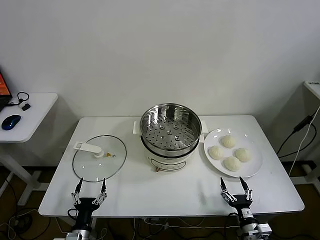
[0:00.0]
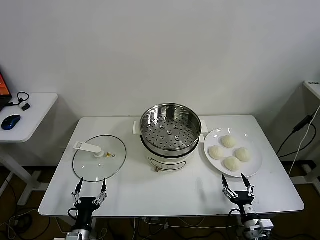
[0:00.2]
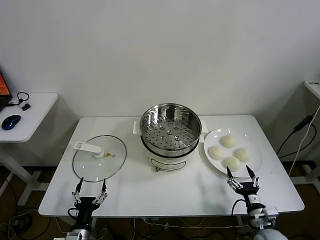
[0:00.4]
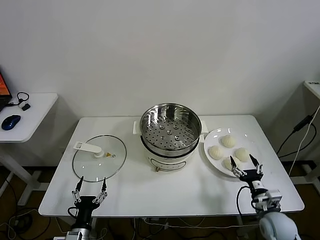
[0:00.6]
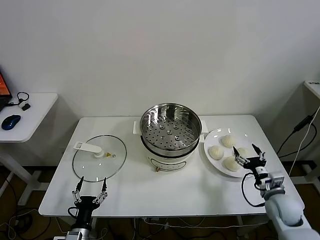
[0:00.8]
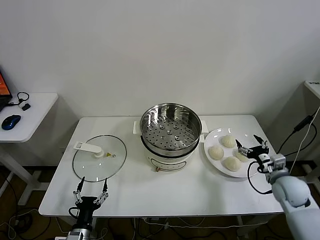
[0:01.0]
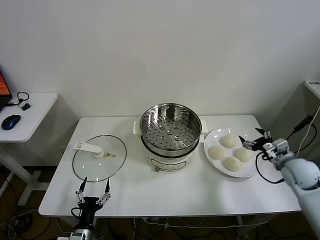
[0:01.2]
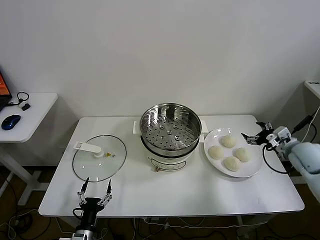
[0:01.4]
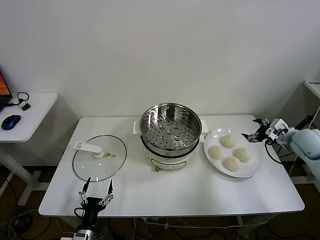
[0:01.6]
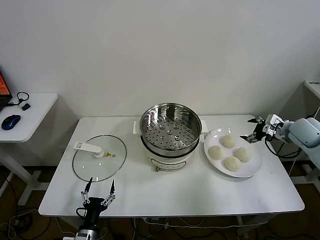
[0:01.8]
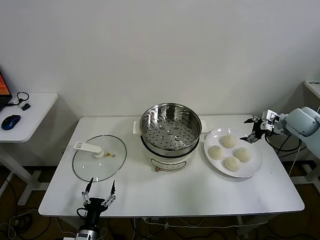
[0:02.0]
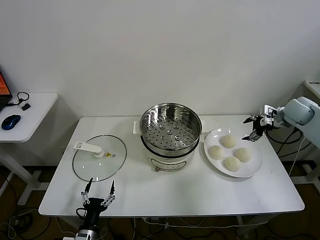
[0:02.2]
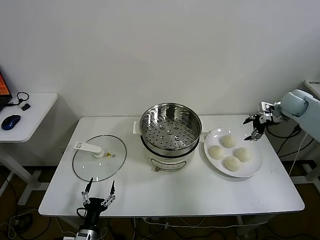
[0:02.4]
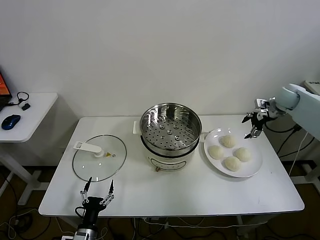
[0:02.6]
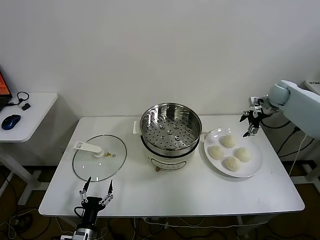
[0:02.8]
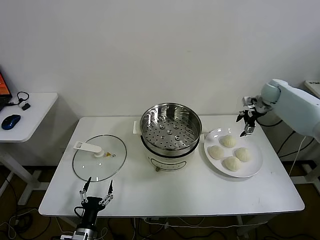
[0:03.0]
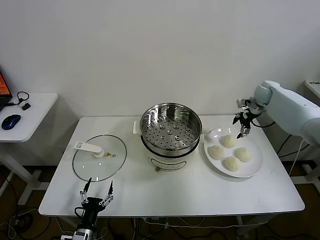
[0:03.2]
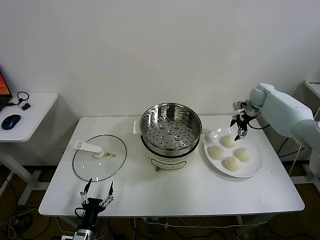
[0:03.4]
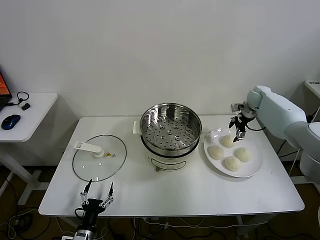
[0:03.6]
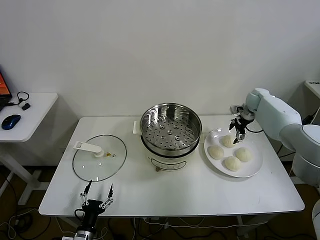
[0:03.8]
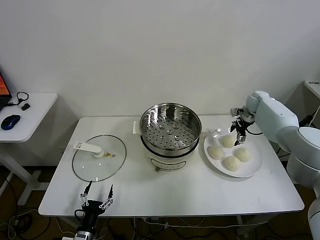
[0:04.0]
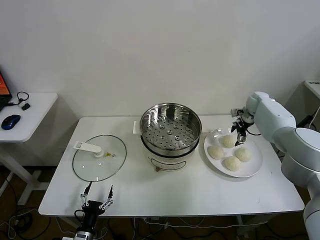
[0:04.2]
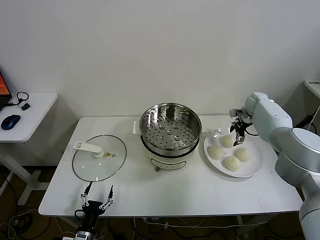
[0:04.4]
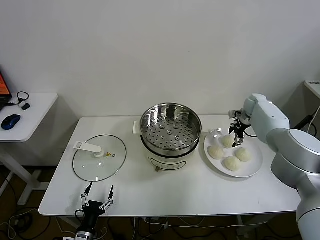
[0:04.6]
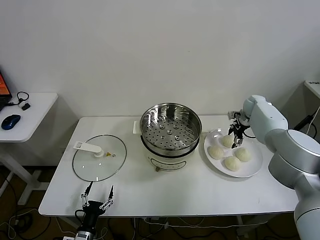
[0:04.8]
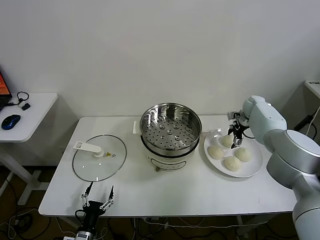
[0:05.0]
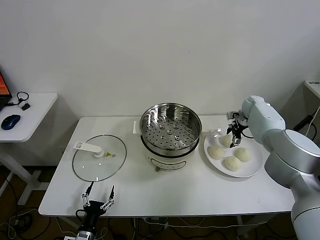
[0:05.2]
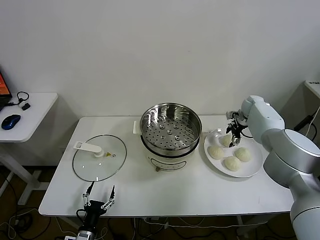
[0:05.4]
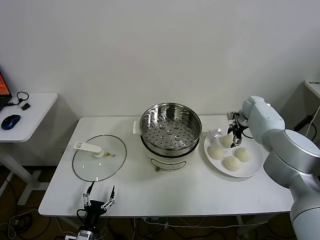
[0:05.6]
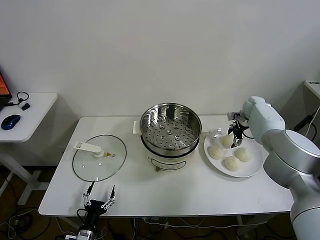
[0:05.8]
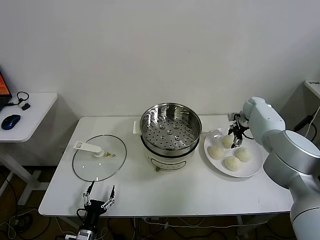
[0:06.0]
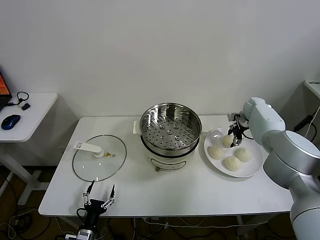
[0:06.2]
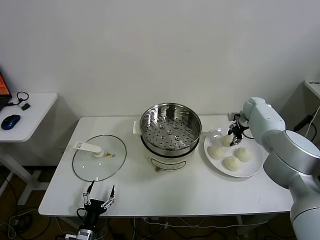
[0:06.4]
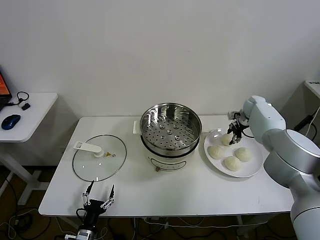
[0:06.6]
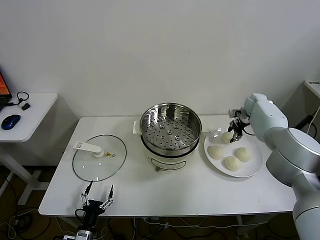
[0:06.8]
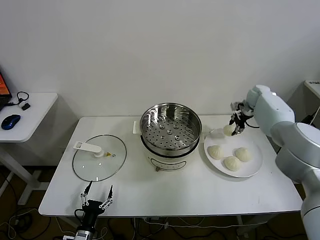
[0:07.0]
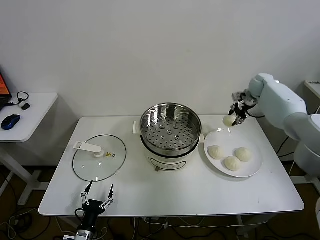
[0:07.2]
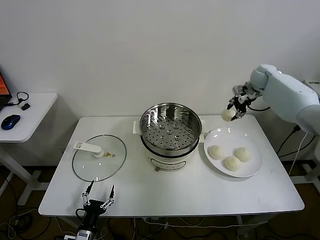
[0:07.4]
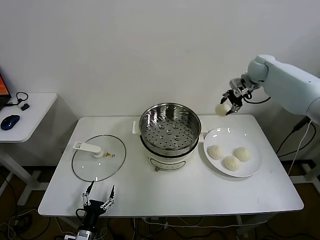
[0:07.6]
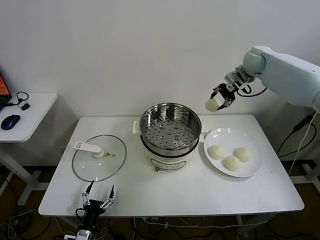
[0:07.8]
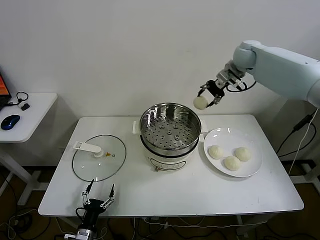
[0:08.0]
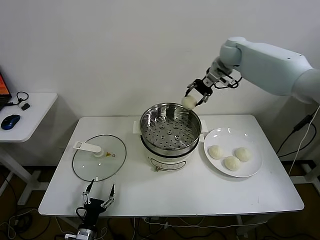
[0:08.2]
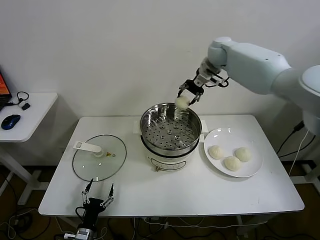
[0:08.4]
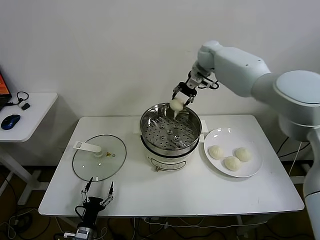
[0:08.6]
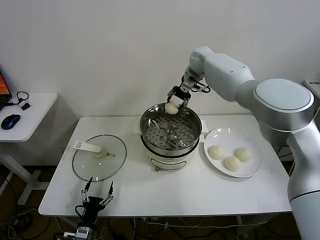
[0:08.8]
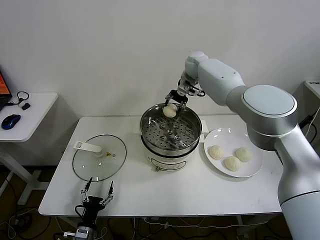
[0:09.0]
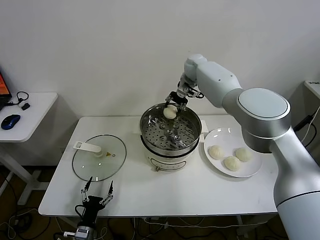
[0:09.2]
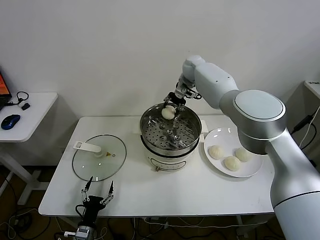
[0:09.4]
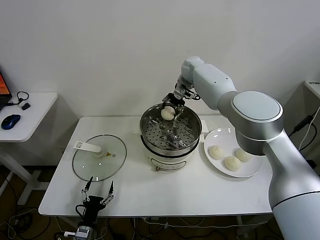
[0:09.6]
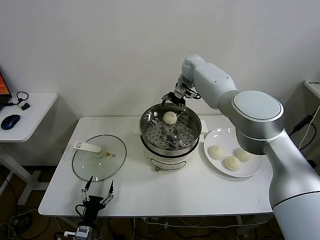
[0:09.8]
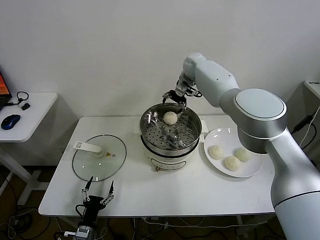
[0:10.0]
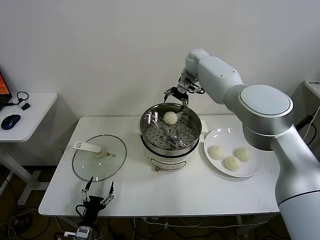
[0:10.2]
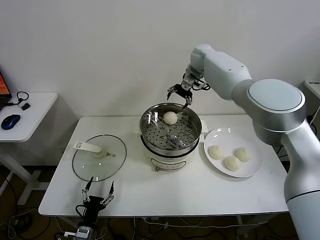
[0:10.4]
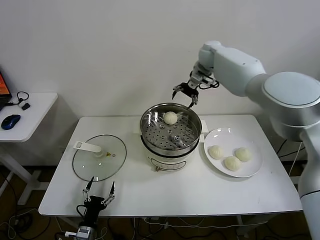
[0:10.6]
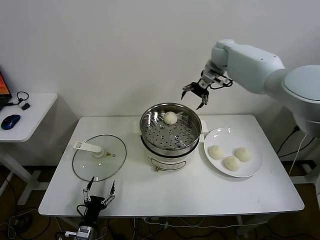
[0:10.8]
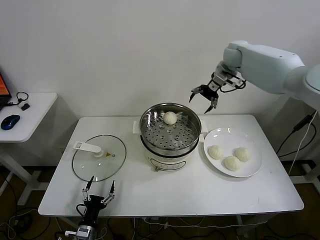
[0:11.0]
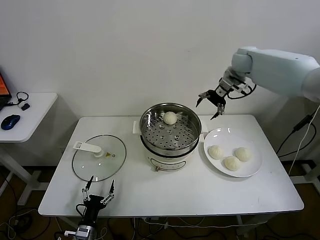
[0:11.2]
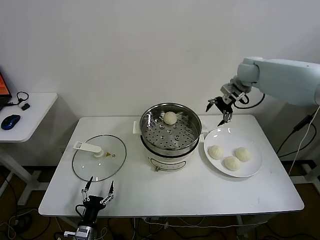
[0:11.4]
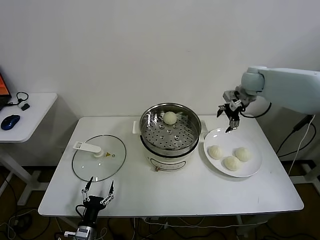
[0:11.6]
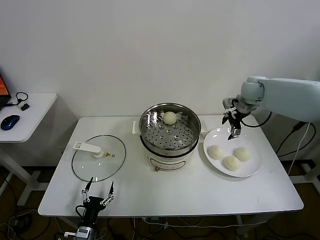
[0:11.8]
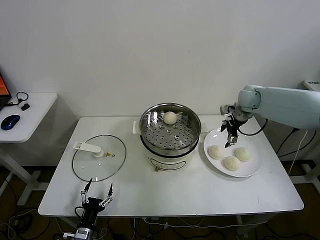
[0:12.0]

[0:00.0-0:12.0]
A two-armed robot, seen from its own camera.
Task of the whole recording: take steamed baozi put them in steamer.
Step, 0:00.0 to 0:06.4: Grasp the baozi in the plate with right gripper.
Step, 0:06.6 to 0:09.8: Place the baozi on the steamer with right gripper.
0:01.6 to 0:03.0: The right gripper travels forward by approximately 20 cm.
0:03.0 to 0:04.4: The right gripper is displaced downward by about 10 cm.
0:04.4 to 0:06.0: The grippers make only small movements.
0:06.0 to 0:07.6: The right gripper goes approximately 20 cm upward, and closes its fingers.
0:07.6 to 0:09.0: The right gripper goes roughly 20 cm to the left.
0:09.0 to 0:10.4: The right gripper shifts by about 5 cm, and opens its fingers.
0:10.4 to 0:12.0: The right gripper goes roughly 25 cm to the right, backward and downward.

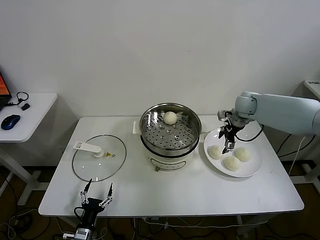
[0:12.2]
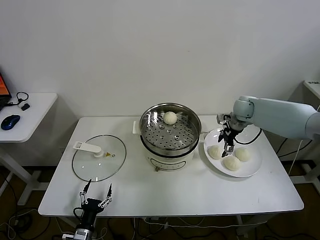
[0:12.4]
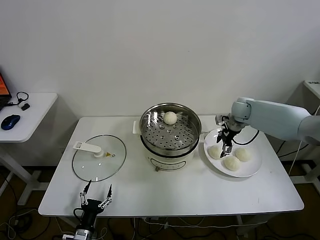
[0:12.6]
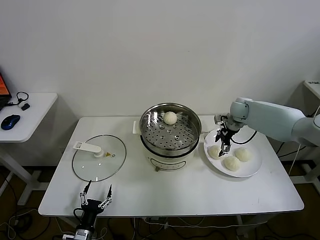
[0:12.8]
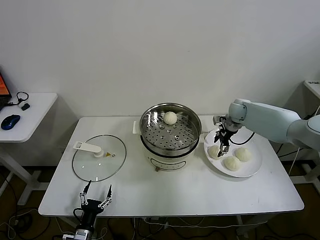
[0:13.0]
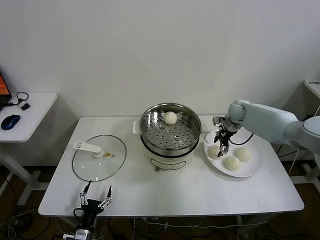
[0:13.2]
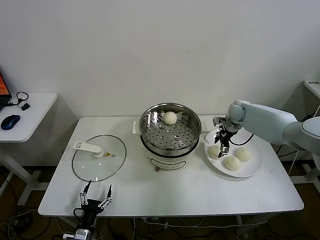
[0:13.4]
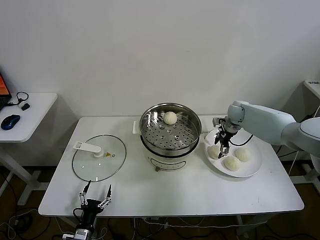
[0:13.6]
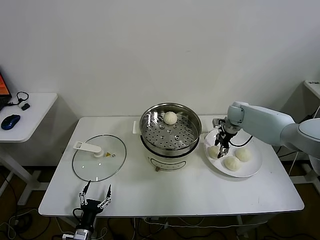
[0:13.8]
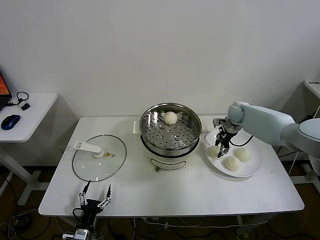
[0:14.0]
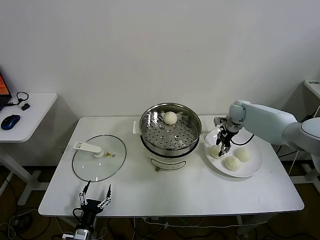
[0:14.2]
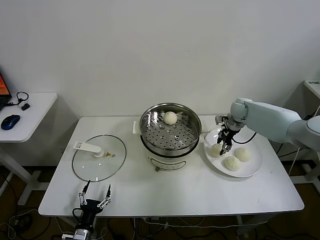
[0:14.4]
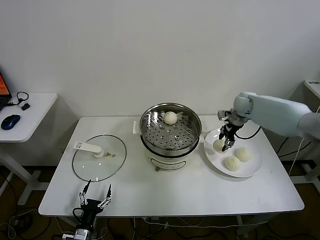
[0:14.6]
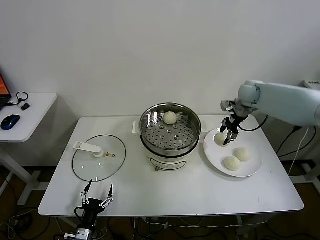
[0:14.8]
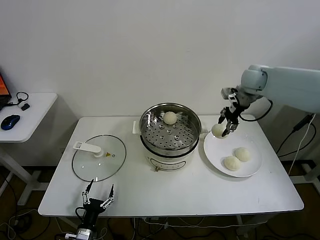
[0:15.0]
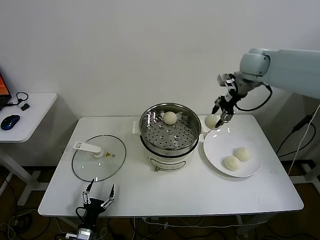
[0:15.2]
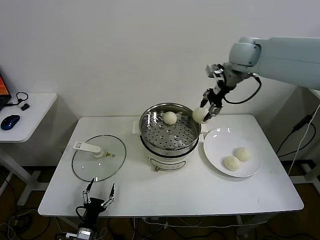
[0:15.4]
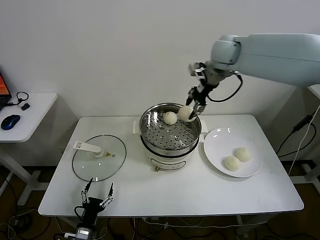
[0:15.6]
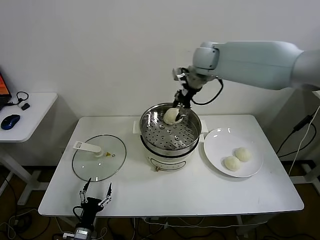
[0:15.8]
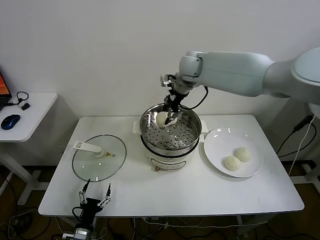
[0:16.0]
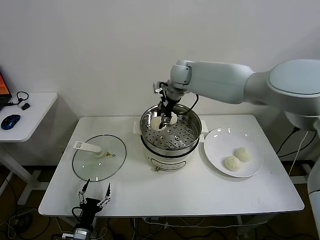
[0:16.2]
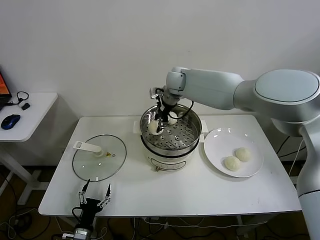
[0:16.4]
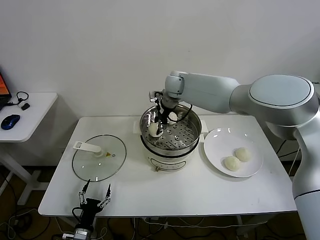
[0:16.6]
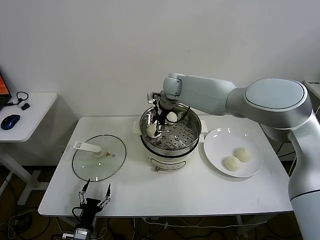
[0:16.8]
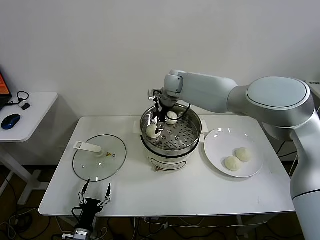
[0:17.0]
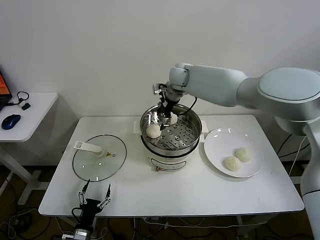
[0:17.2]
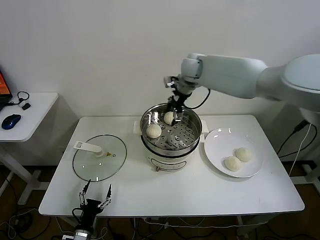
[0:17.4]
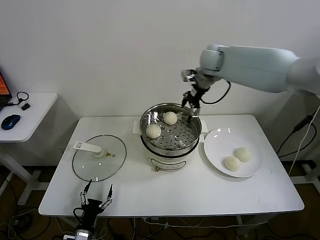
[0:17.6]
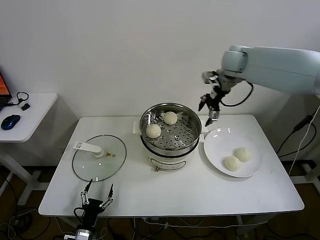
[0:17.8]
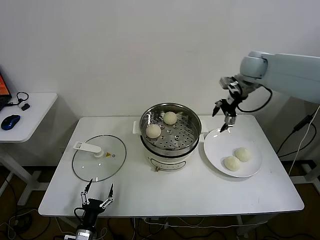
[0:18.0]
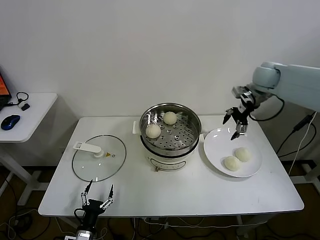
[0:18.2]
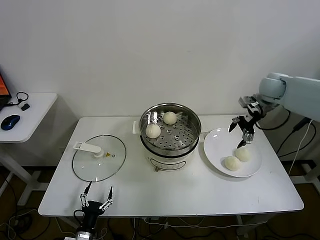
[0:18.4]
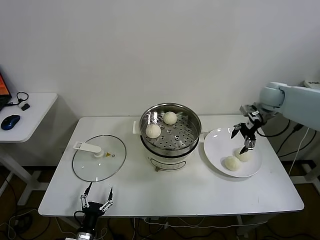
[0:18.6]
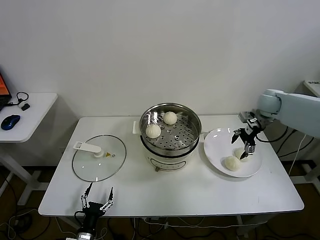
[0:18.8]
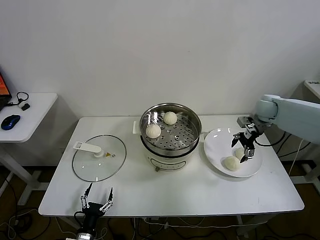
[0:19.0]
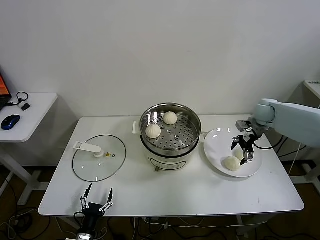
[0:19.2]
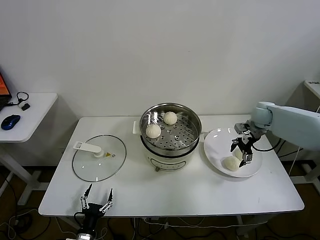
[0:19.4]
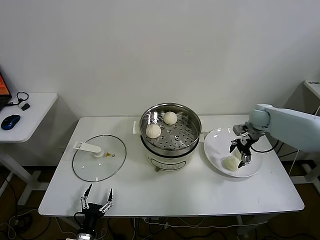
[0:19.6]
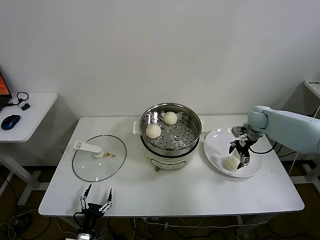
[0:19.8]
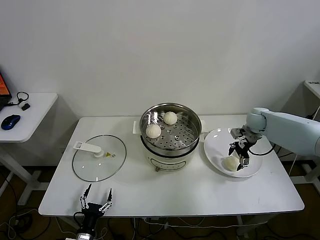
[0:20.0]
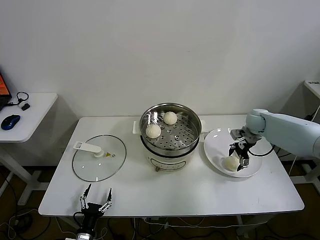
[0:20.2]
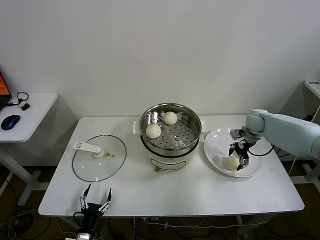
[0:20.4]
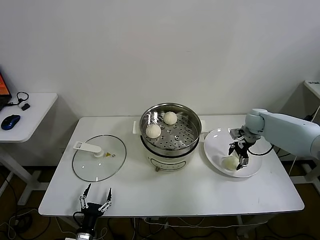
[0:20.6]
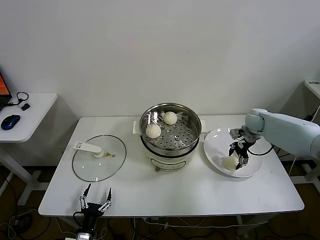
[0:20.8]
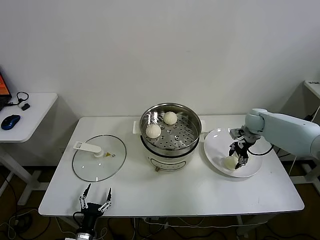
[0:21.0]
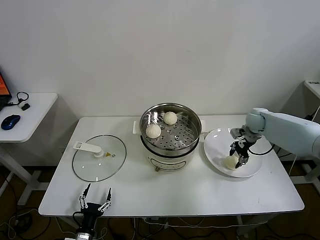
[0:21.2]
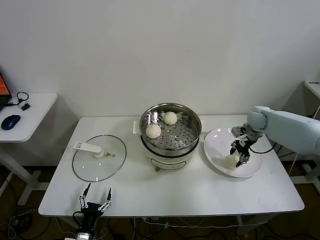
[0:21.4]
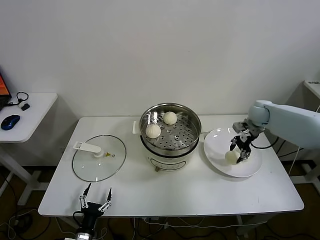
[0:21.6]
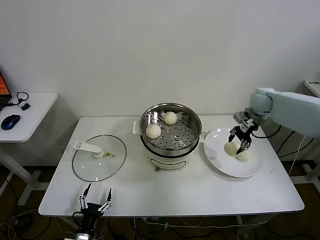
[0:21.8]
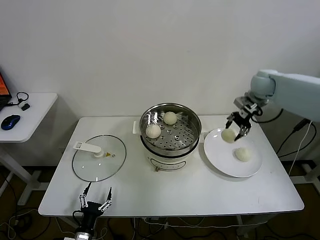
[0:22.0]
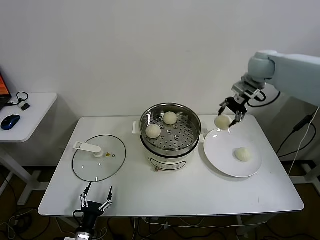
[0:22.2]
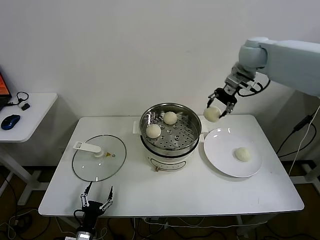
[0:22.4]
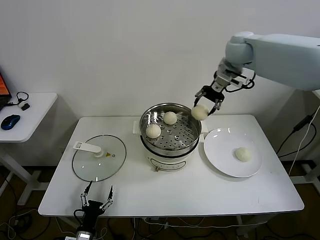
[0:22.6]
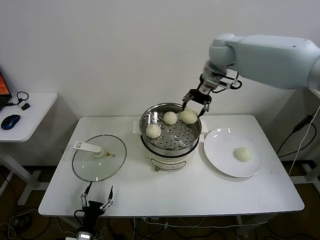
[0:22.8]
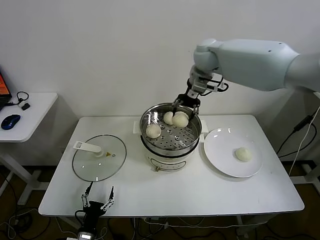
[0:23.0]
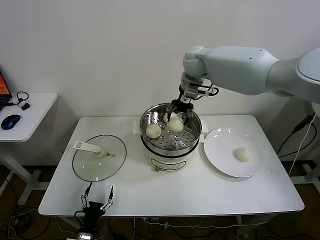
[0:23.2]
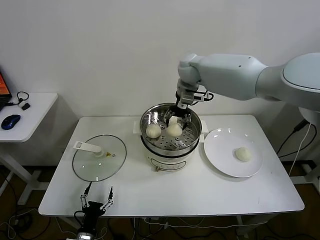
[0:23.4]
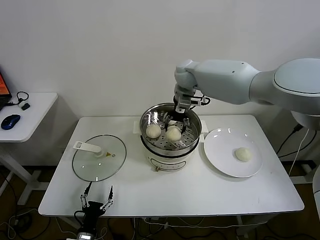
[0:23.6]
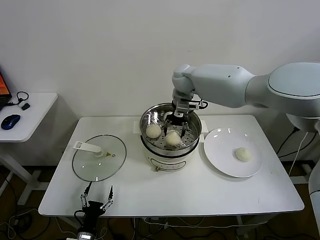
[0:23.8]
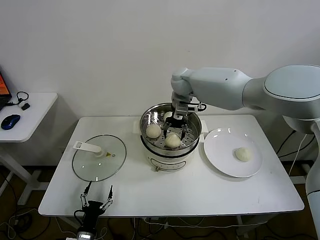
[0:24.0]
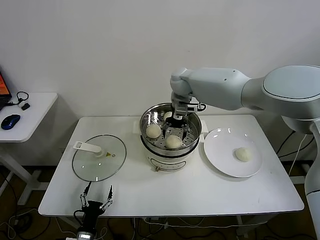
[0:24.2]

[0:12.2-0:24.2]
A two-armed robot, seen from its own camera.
Task of the whole recording: take steamed baozi put them in steamer.
Step, 0:12.2 to 0:14.2: Grasp the baozi in the plate with right gripper.
Step, 0:14.4 to 0:17.0: Place the baozi on the steamer with right gripper.
Step, 0:17.2 to 0:21.4: Grasp the baozi in the plate with right gripper.
0:12.2 to 0:13.8: The right gripper shifts roughly 5 cm downward, and closes.
0:13.8 to 0:15.2: The right gripper goes approximately 25 cm upward.
0:15.2 to 0:16.6: The right gripper shifts about 25 cm to the left and downward.
0:16.6 to 0:18.2: The right gripper is displaced to the right by about 30 cm, and opens up.
0:18.2 to 0:19.8: The right gripper shifts roughly 15 cm downward.
0:19.8 to 0:21.2: The right gripper closes up.
0:21.2 to 0:22.6: The right gripper travels upward and to the left by about 30 cm.
0:22.6 to 0:24.2: The right gripper heads to the left and downward, covering roughly 20 cm, and opens its fingers.
